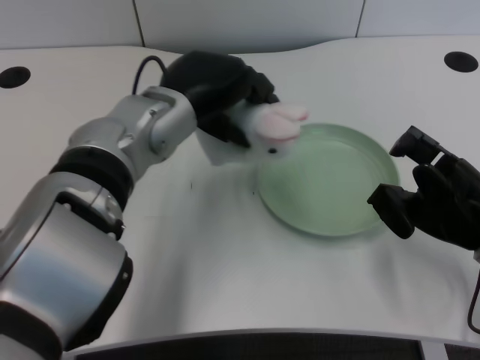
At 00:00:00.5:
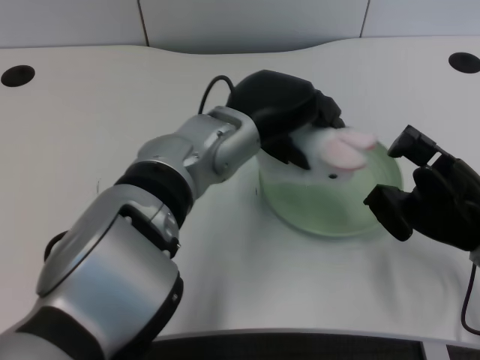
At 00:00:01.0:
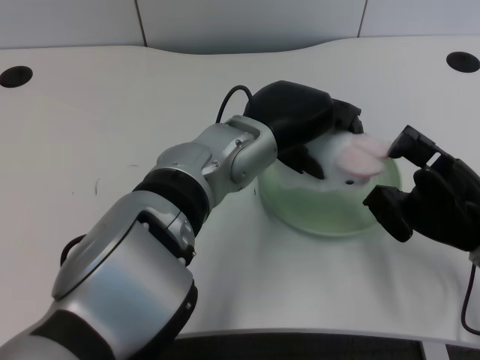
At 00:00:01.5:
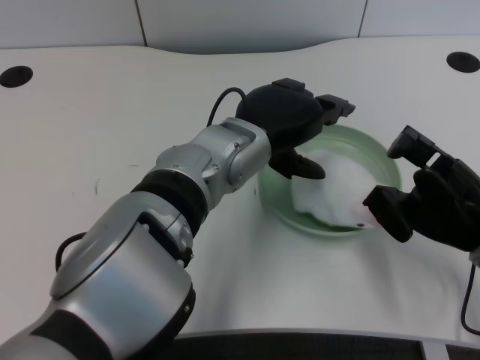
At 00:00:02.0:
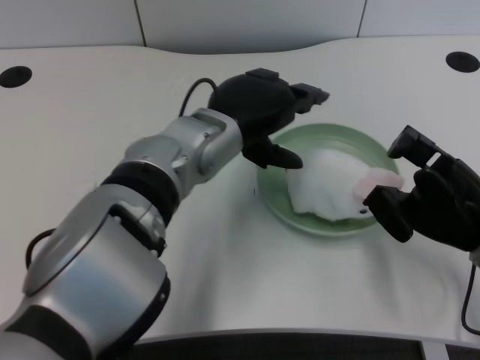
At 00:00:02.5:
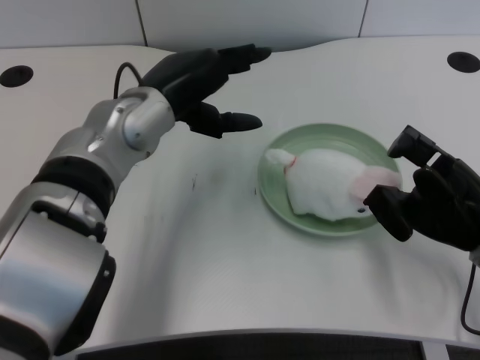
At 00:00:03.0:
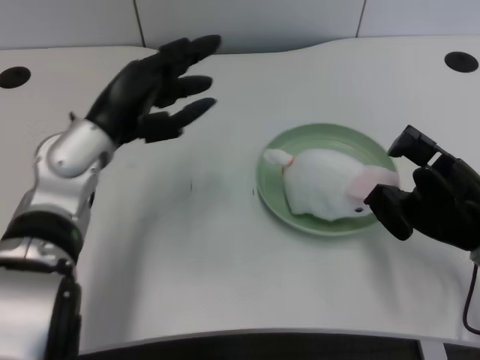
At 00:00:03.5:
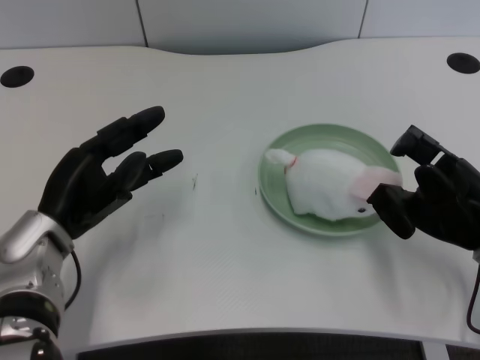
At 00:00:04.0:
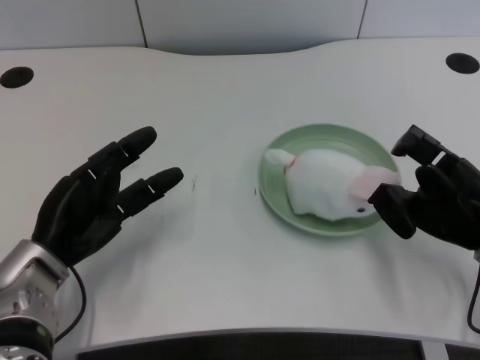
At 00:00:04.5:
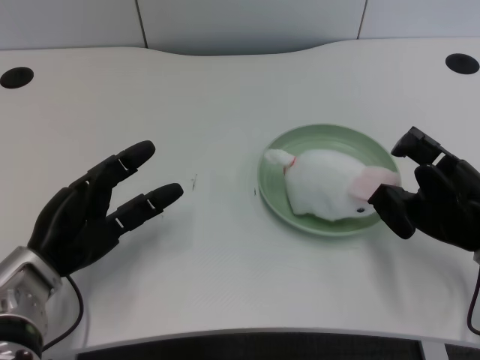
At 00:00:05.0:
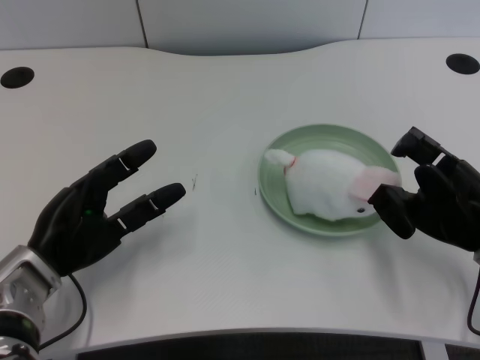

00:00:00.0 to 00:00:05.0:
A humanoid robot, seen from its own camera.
Task of the whole recording: pick up the rabbit doll from the table and place it on the plate.
00:00:00.0 to 00:00:02.5: The left hand moves approximately 5 cm to the right and comes back.
00:00:02.5 to 00:00:05.0: The left hand travels downward, to the left and backward by roughly 20 cm.

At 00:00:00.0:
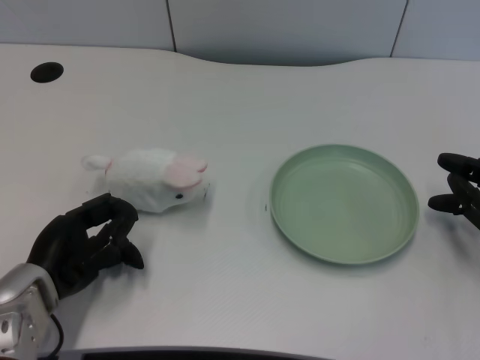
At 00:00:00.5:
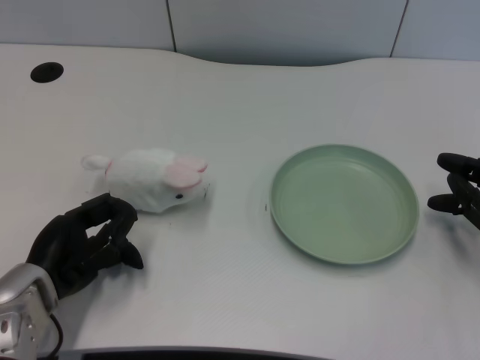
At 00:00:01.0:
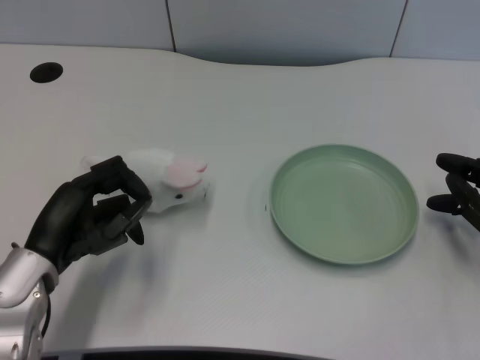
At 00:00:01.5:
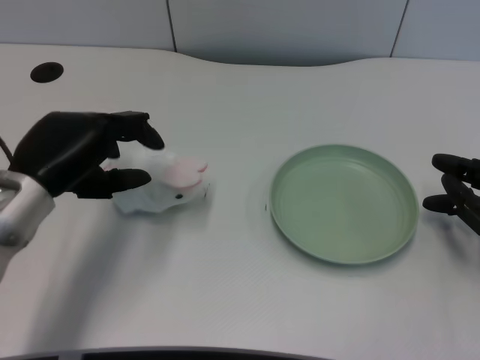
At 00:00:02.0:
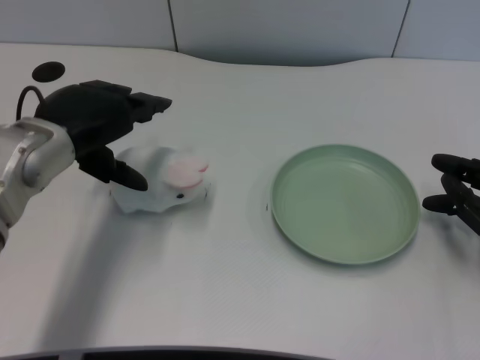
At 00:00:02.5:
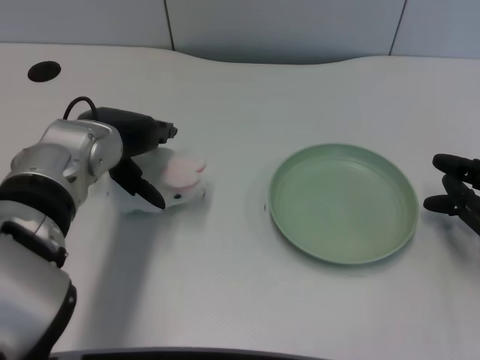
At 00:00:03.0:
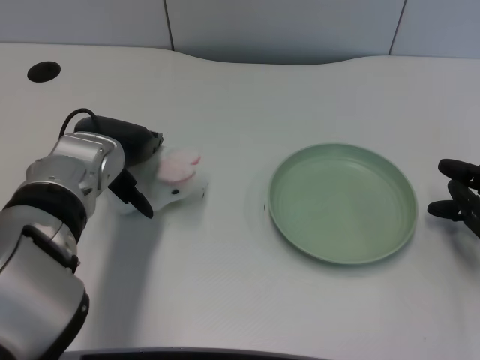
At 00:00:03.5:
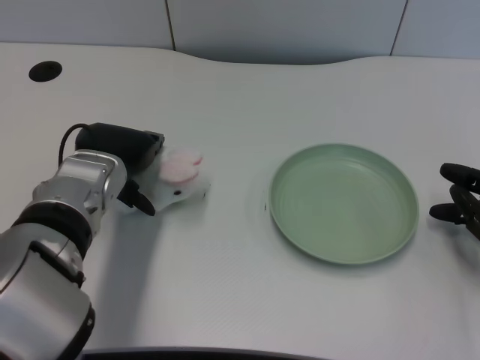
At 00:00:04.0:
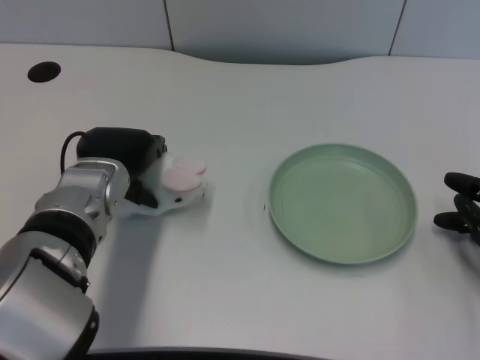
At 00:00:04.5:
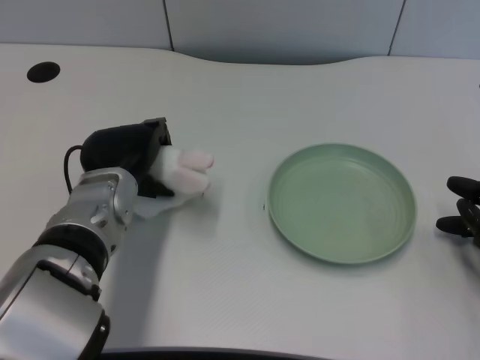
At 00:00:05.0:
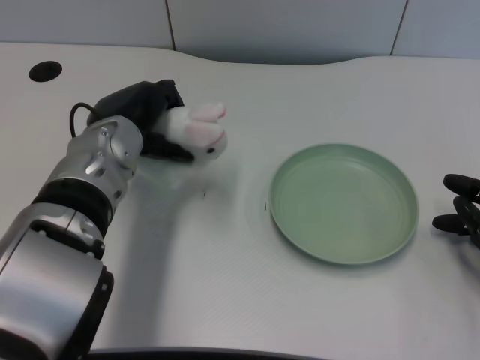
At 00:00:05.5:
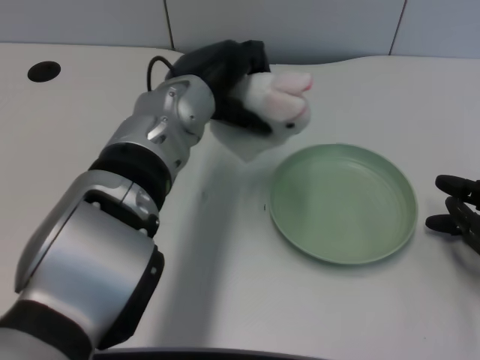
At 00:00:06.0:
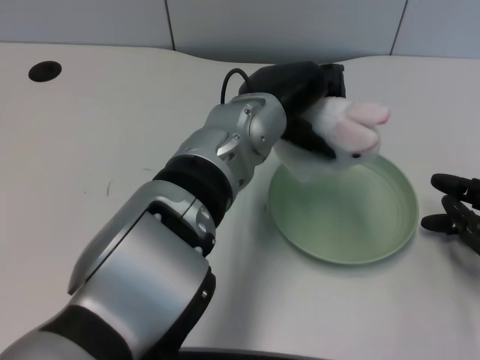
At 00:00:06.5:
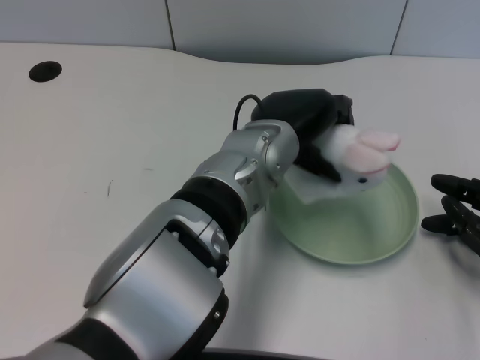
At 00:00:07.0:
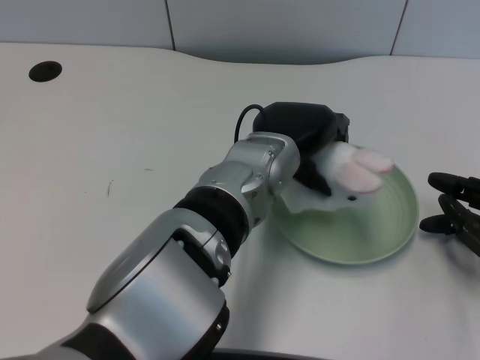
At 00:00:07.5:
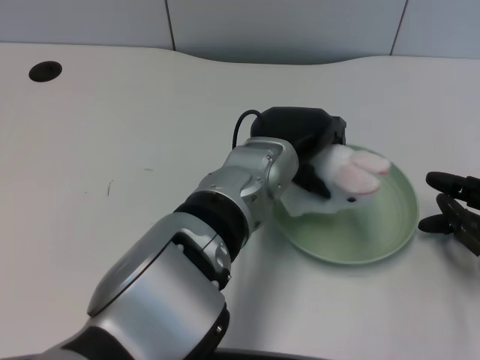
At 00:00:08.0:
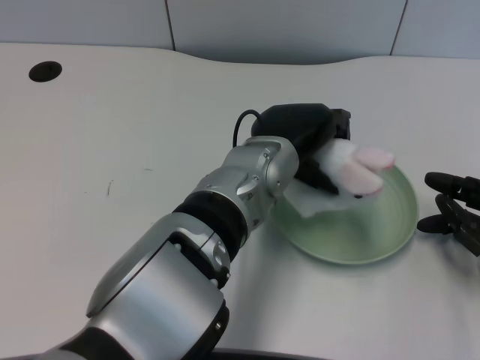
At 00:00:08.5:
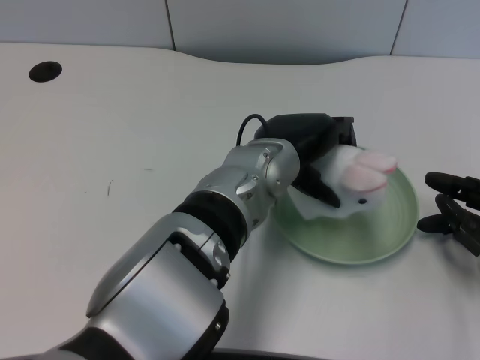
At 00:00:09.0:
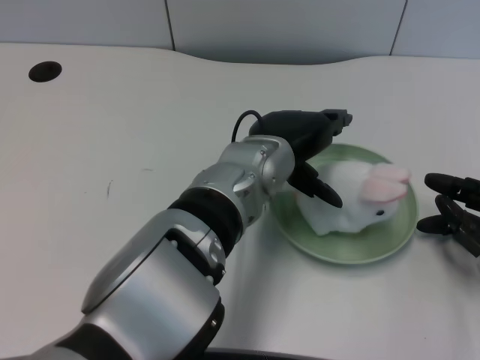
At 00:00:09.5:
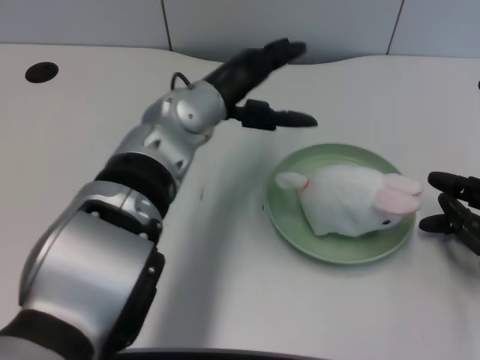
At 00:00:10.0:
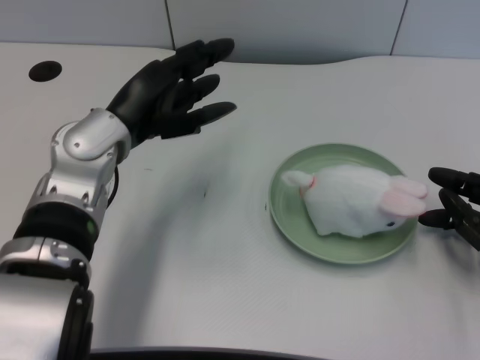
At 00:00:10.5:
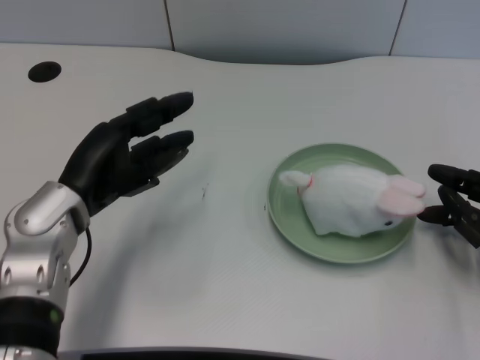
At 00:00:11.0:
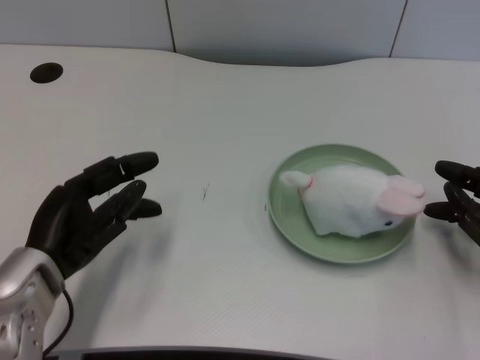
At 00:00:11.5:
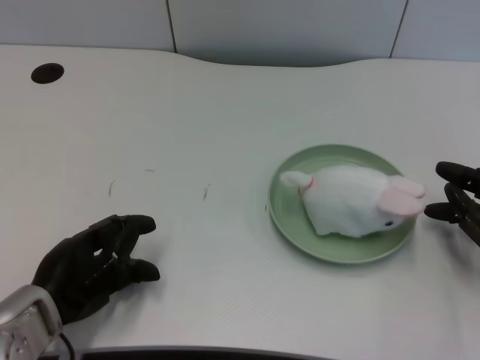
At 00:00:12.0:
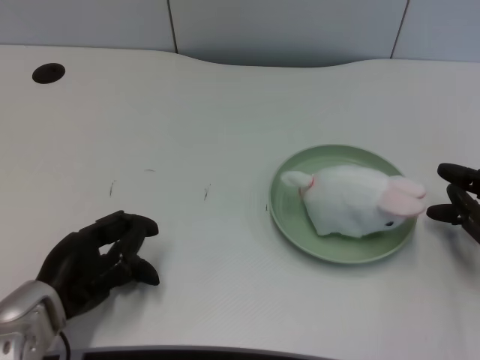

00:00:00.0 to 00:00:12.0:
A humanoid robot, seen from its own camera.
Task of the whole recording: pick up the rabbit doll from the table and place it on the plate.
Step, 00:00:01.0 to 00:00:04.5: Grasp the rabbit doll with the left gripper.
Step, 00:00:05.0 to 00:00:09.0: Place the rabbit doll into the plate with the left gripper.
00:00:02.0 to 00:00:04.0: The left hand moves downward, about 5 cm.
00:00:04.0 to 00:00:06.0: The left hand moves to the right and upward, roughly 15 cm.
00:00:08.0 to 00:00:10.0: The left hand goes approximately 15 cm to the left.
00:00:10.0 to 00:00:12.0: The left hand shifts about 15 cm backward, downward and to the left.

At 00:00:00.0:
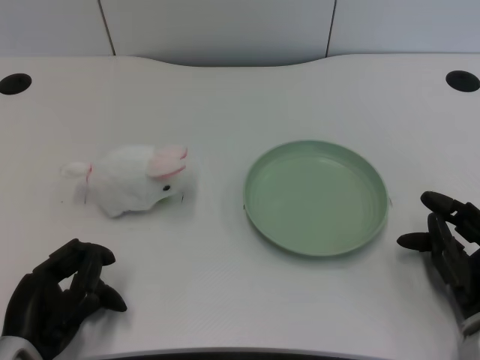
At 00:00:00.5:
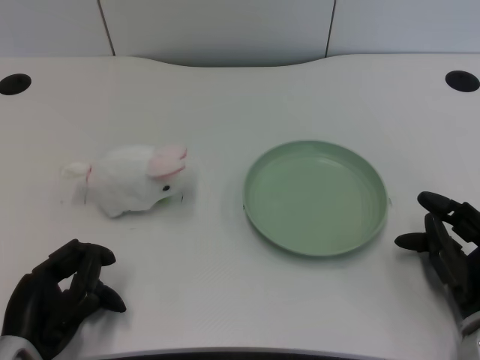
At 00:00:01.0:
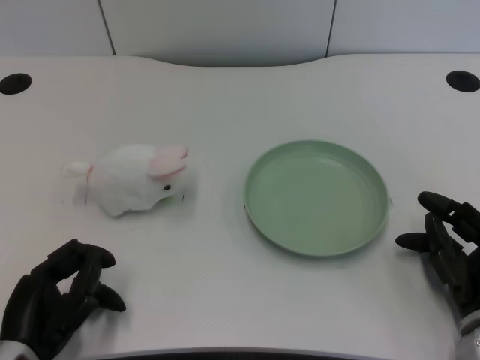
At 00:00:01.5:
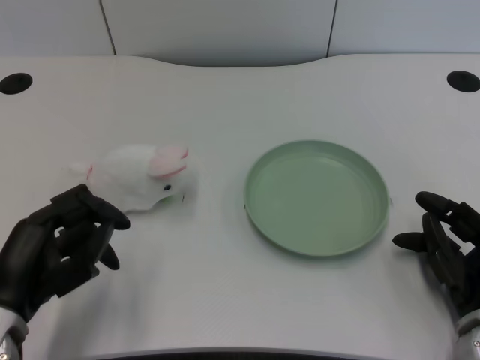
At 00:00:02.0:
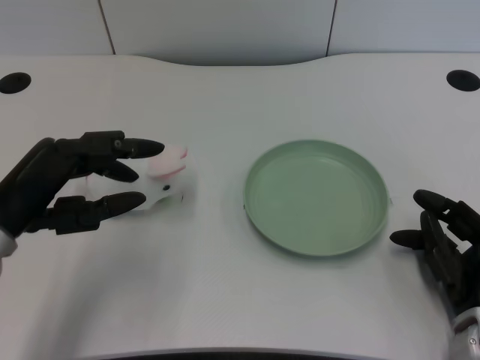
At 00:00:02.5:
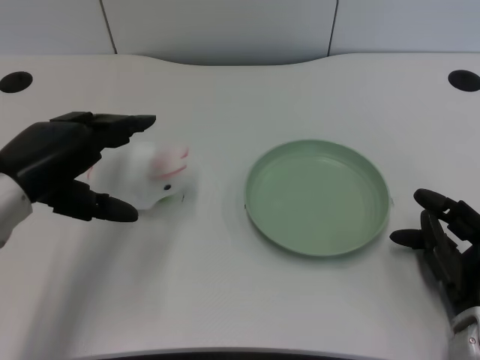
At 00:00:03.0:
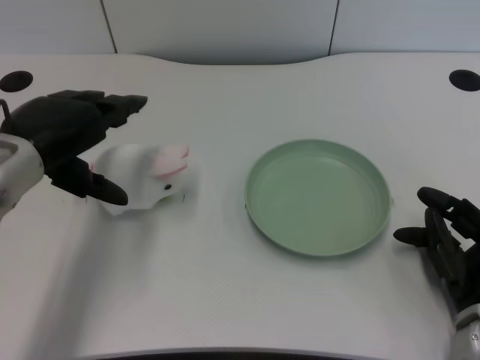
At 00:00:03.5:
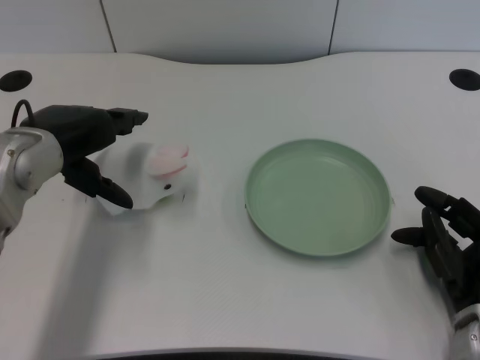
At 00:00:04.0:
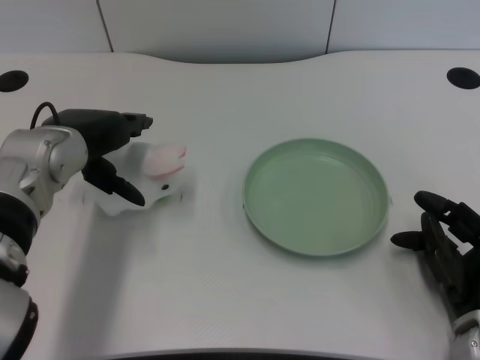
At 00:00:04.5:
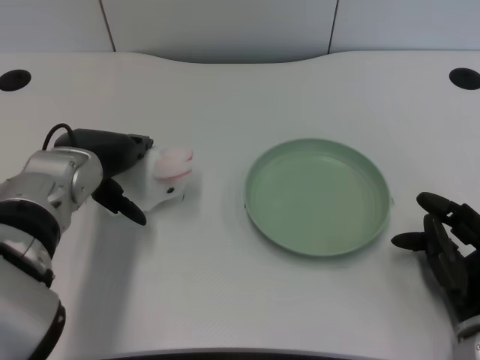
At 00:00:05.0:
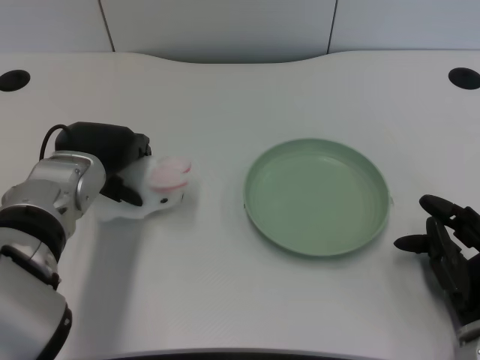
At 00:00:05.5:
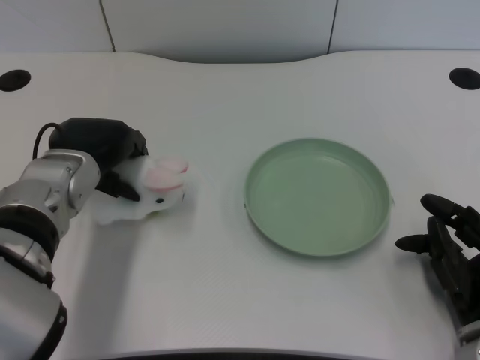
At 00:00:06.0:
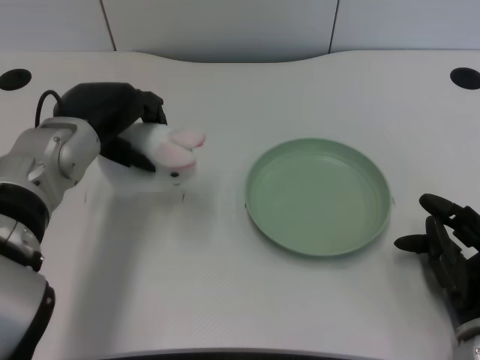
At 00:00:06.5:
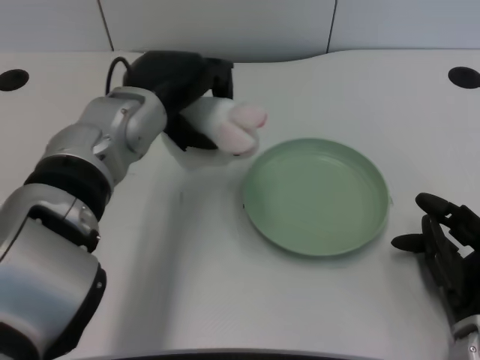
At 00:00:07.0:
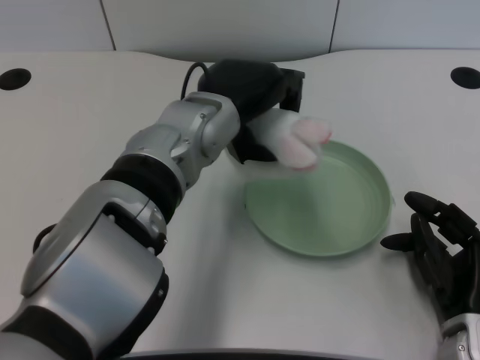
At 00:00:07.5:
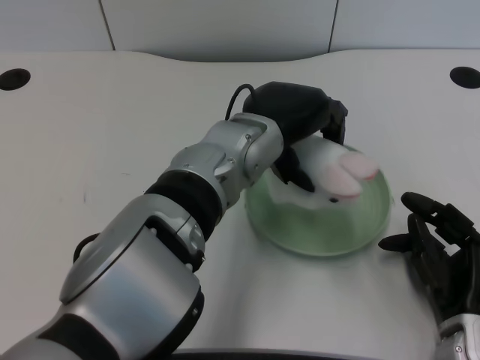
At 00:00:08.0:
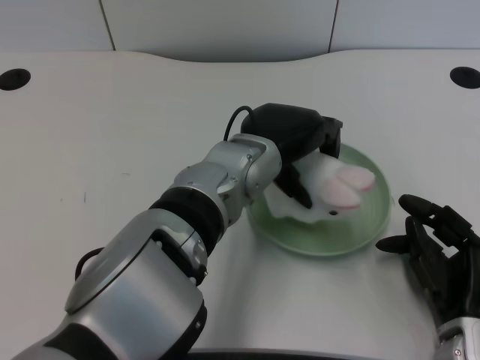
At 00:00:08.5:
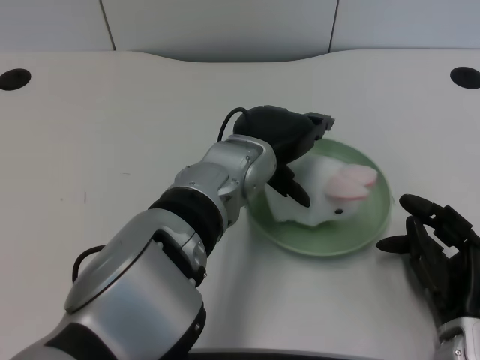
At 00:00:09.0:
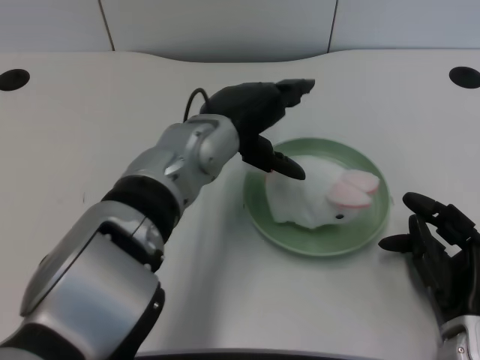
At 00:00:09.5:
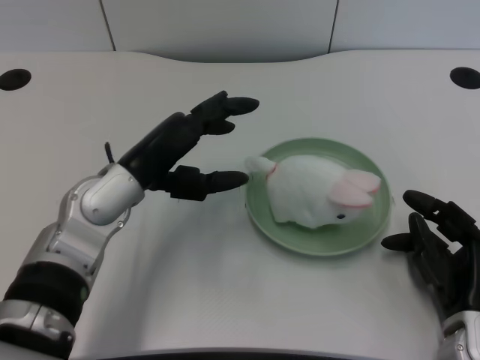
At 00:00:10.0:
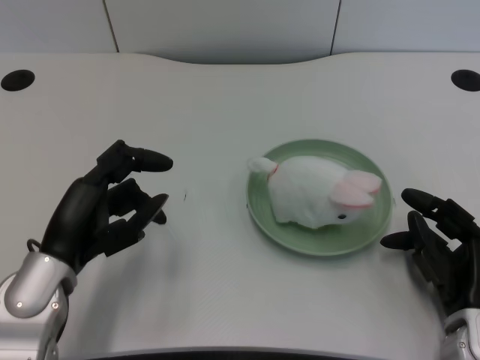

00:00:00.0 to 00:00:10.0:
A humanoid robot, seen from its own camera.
Task of the whole recording: pick up the rabbit doll from the table and place it on the plate.
Step, 00:00:01.5 to 00:00:05.5: Grasp the rabbit doll with the left gripper.
Step, 00:00:06.0 to 00:00:08.5: Place the rabbit doll into the plate with the left gripper.
00:00:02.0 to 00:00:04.0: The left hand moves forward and to the right, approximately 10 cm.
00:00:04.0 to 00:00:06.0: The hands move only a little.
00:00:06.0 to 00:00:08.0: The left hand heads to the right, covering some 15 cm.
00:00:08.0 to 00:00:10.0: The left hand moves to the left, some 20 cm.
